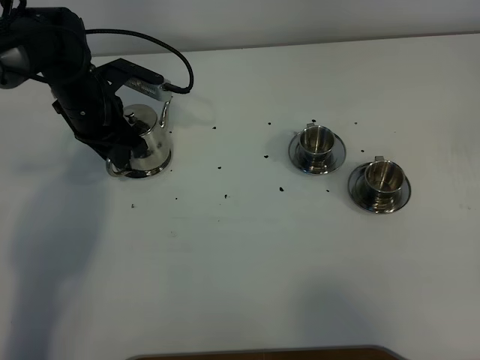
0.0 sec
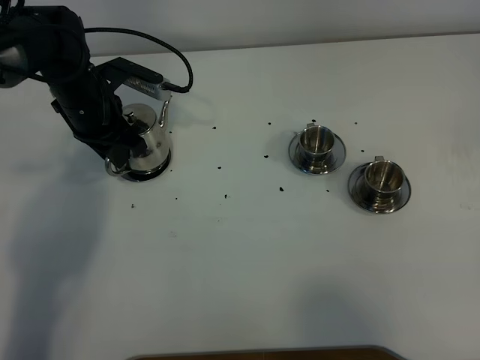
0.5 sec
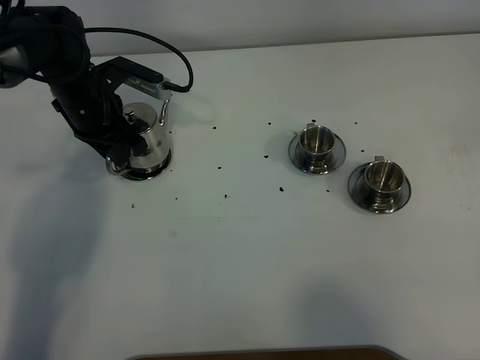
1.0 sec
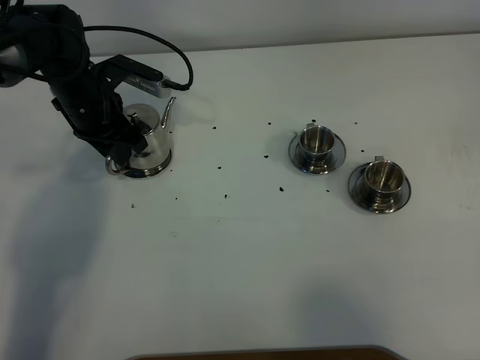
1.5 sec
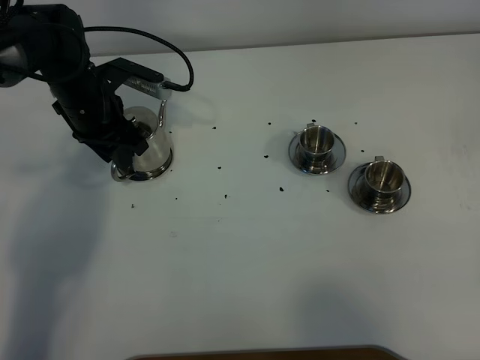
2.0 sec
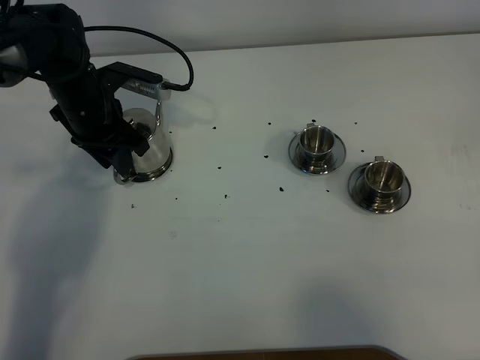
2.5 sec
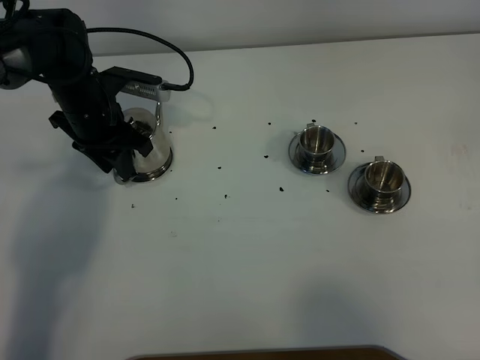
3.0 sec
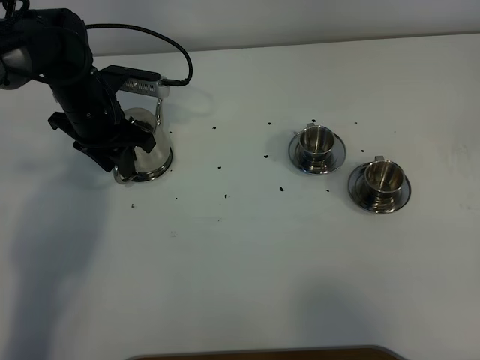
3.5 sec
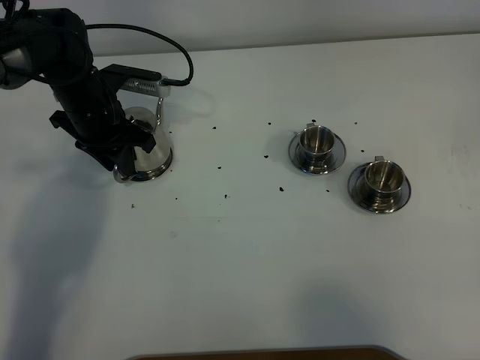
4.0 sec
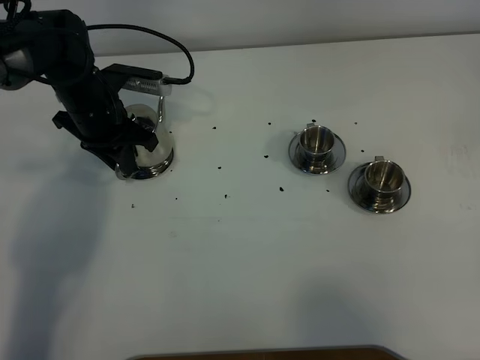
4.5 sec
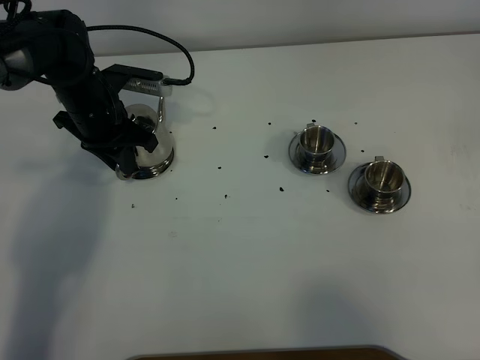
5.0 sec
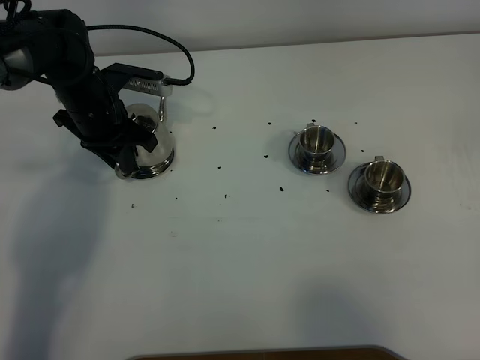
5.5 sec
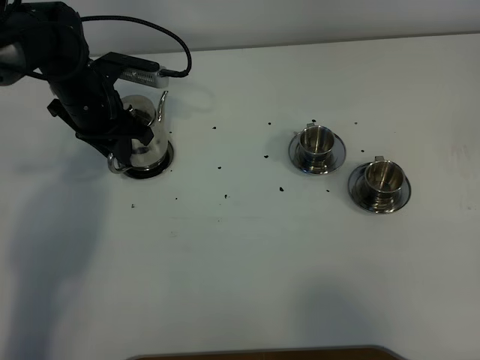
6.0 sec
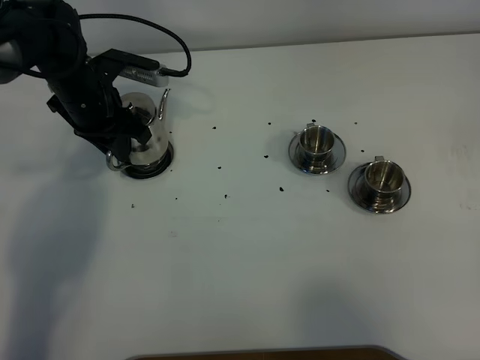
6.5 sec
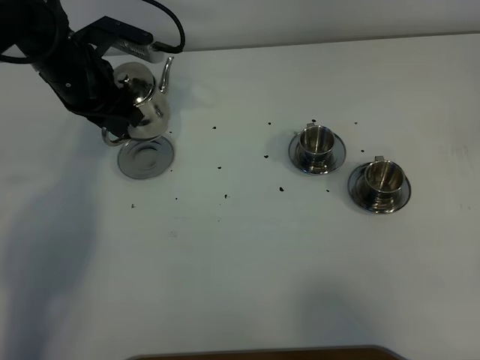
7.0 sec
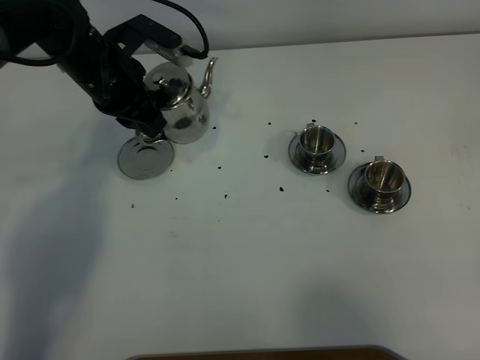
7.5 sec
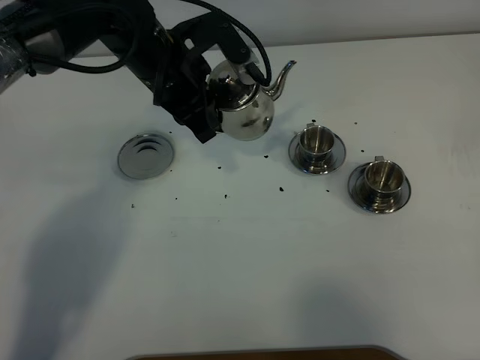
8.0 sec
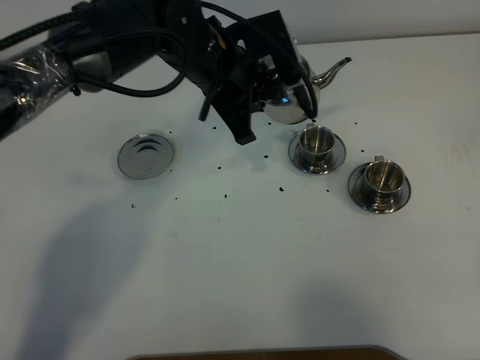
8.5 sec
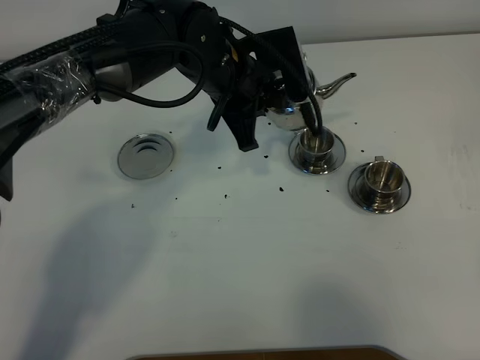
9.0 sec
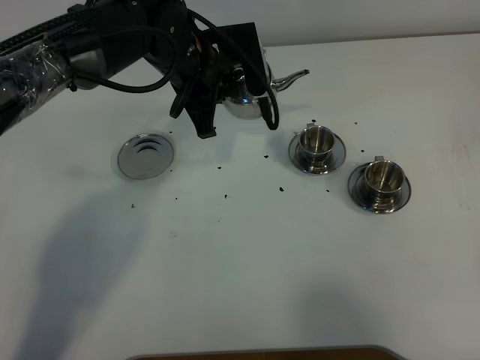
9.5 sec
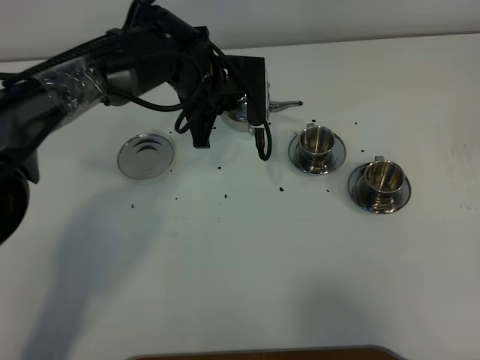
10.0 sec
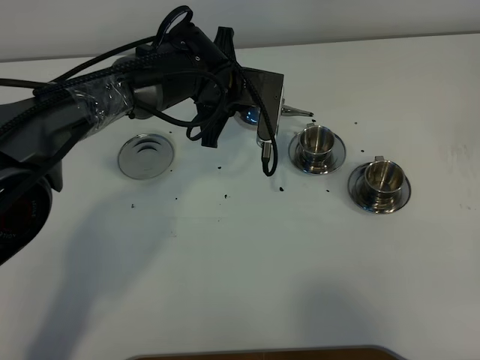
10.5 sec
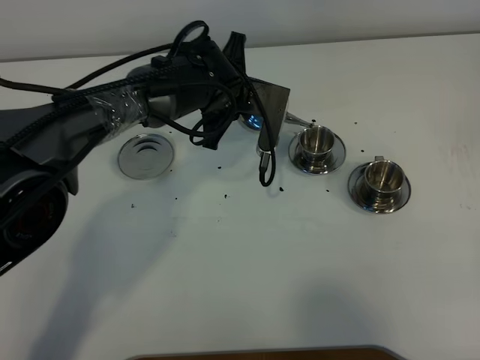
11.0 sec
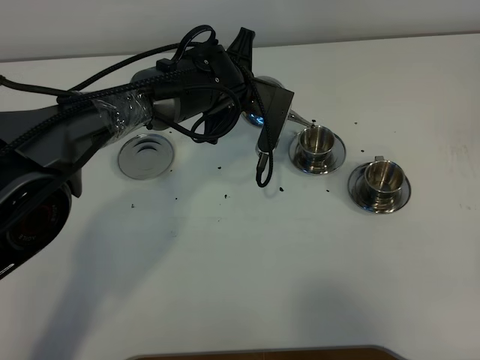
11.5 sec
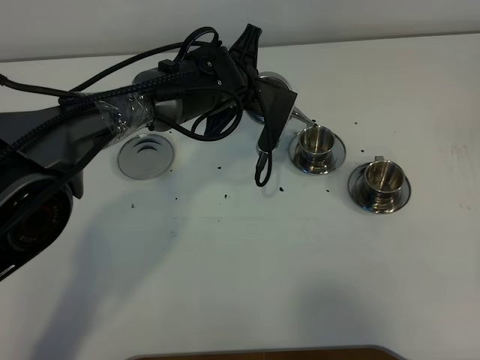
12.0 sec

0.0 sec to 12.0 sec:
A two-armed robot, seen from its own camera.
Task of the whole recording: grasp the stainless steel teapot and pour the tea into the two stainless steel teacups one by one, put the stainless steel teapot back in its original place.
0.0 sec to 2.0 sec: The left gripper opens.
2.0 sec to 4.0 sec: The grippers move only a little.
4.0 sec to 6.0 sec: Both grippers stay about where they are.
6.0 sec to 8.0 sec: The left gripper moves to the right and upward, roughly 15 cm.
8.0 sec to 10.0 sec: The left gripper shifts some 5 cm downward.

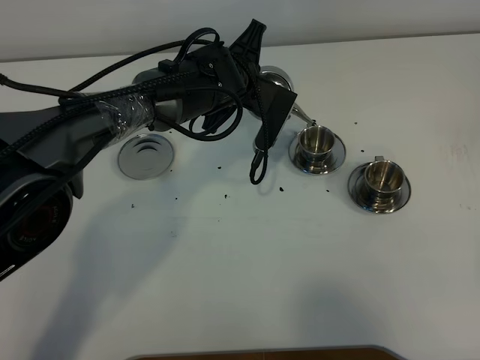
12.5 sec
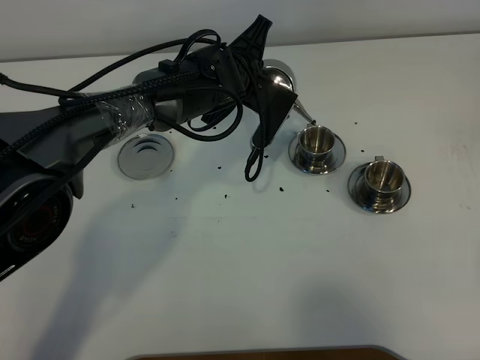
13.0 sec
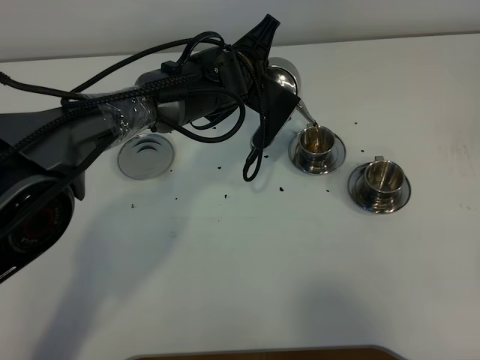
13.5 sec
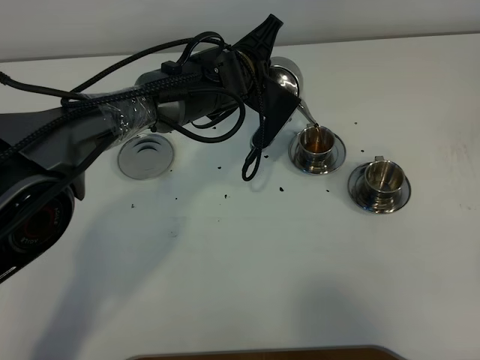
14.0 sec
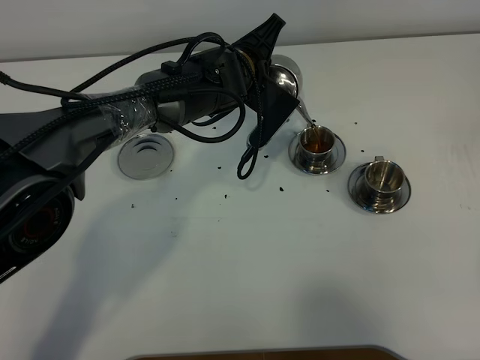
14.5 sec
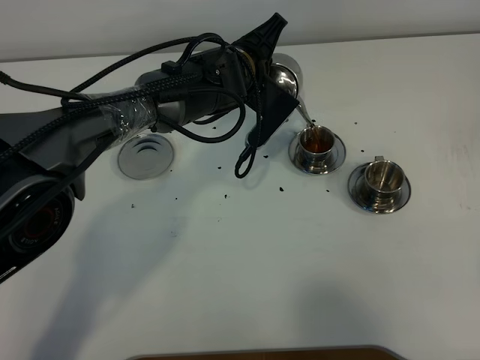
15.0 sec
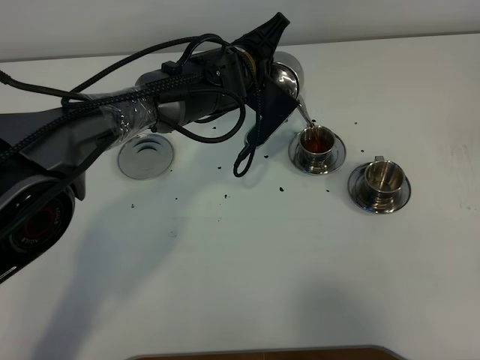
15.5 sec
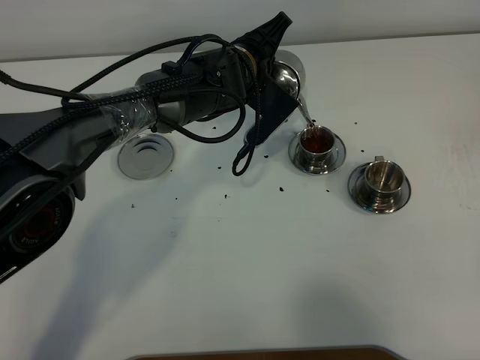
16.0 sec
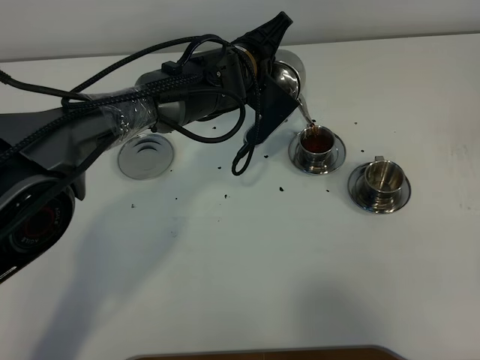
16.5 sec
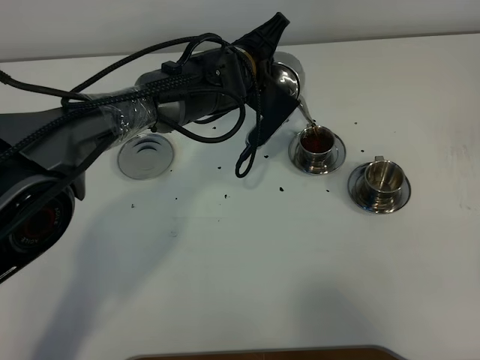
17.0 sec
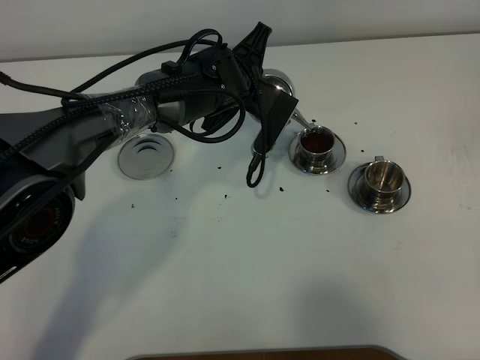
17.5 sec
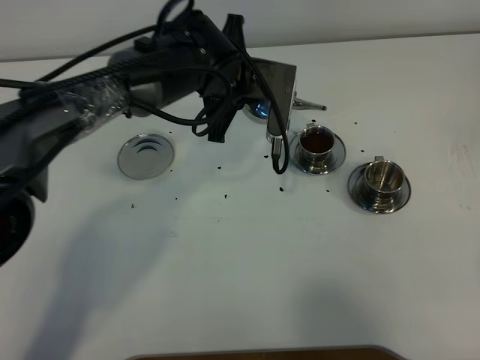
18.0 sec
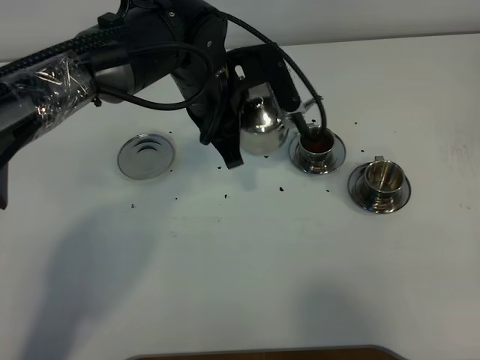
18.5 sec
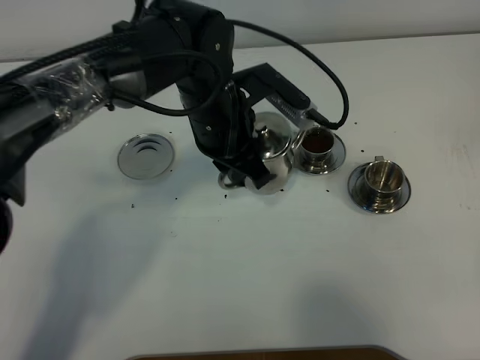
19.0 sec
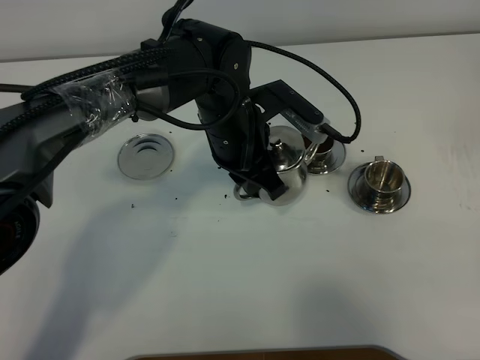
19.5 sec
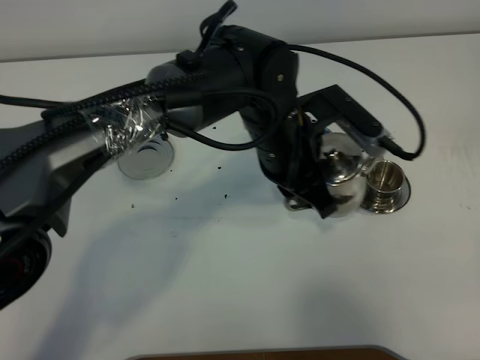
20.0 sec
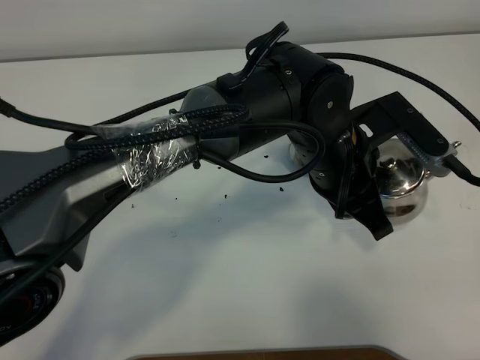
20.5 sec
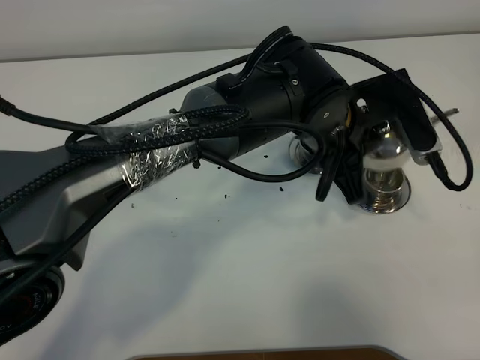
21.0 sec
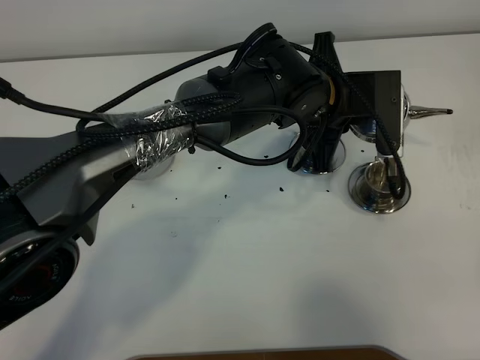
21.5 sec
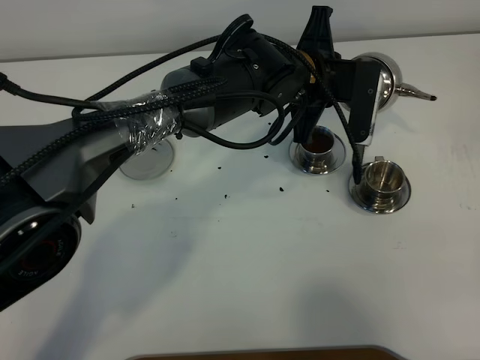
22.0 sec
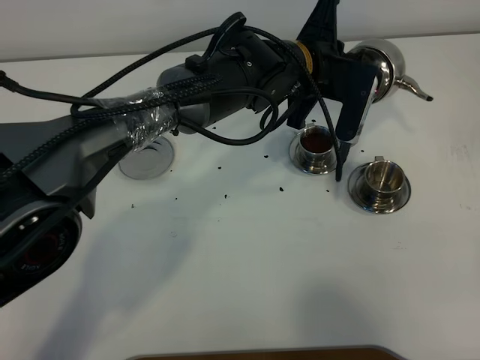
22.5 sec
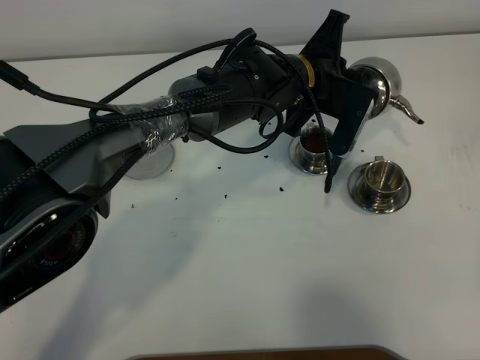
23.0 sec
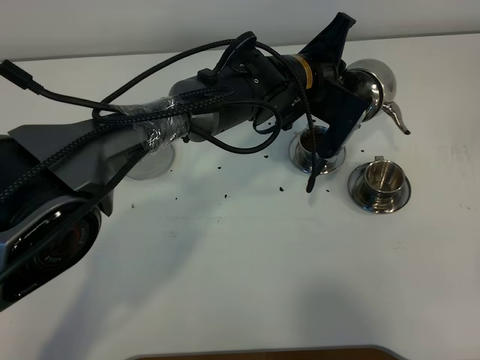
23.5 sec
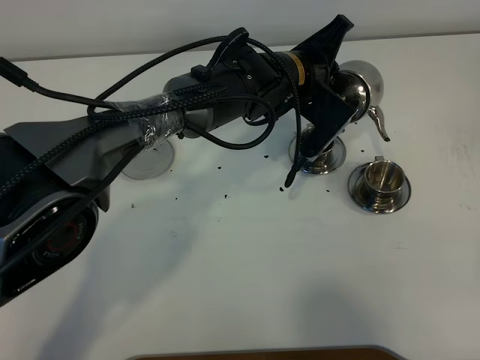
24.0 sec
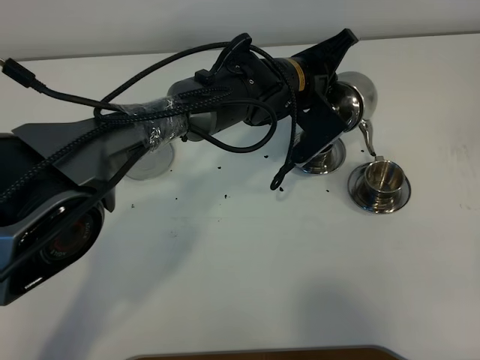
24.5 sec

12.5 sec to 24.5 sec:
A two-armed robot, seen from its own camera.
Task of the whole recording: grasp the stainless steel teapot and pour the tea into the two stainless steel teacups one by one, put the stainless steel teapot back in its original place.
Step, 12.5 sec to 17.5 sec: Pour tea into the teacup with the left gripper.
12.5 sec to 14.5 sec: The grippers stay close to where they were, moving slightly.
14.5 sec to 16.5 sec: There are only small adjustments of the grippers.
16.5 sec to 18.5 sec: The left gripper goes about 10 cm backward and upward.
18.5 sec to 20.5 sec: The left gripper heads to the right and backward, covering roughly 15 cm.
20.5 sec to 22.5 sec: The left gripper shifts some 10 cm forward.

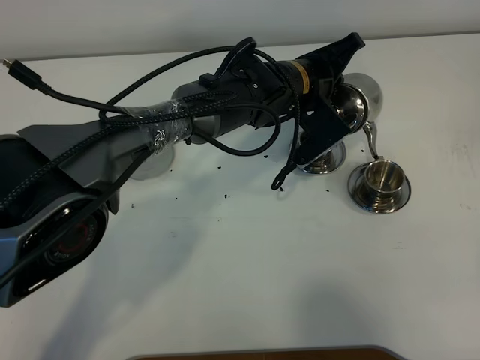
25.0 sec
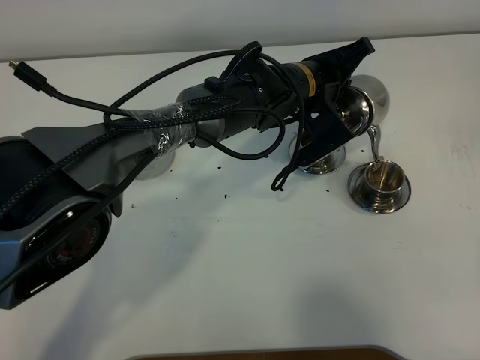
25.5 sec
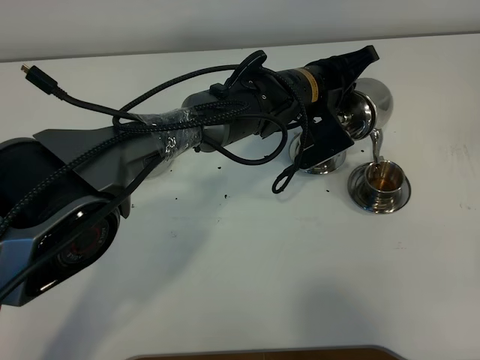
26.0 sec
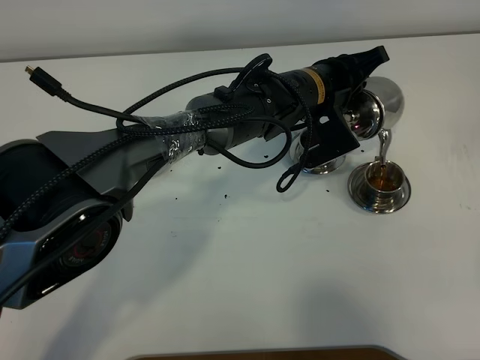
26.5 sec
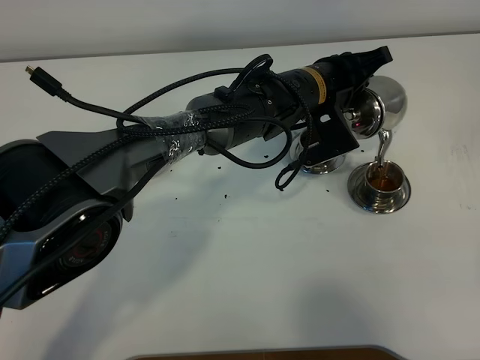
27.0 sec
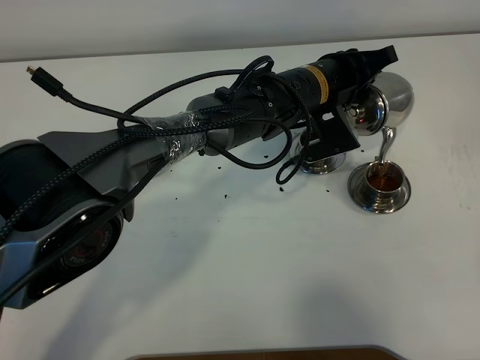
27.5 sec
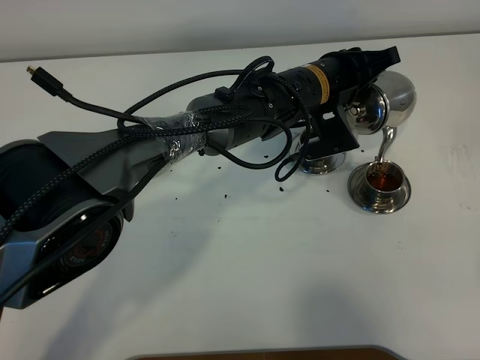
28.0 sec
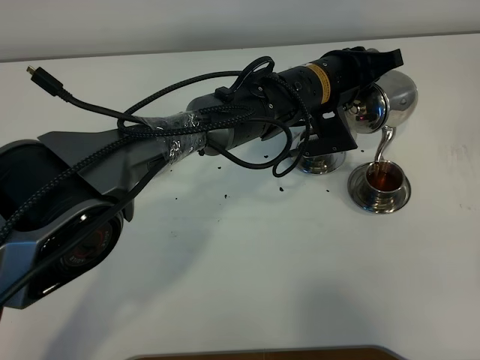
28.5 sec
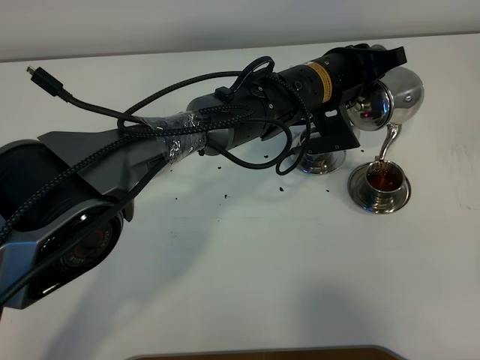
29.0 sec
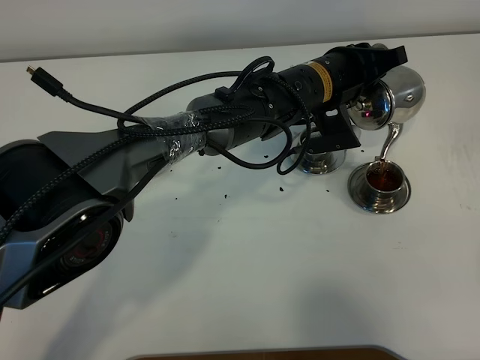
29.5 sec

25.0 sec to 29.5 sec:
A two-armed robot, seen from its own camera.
Task of the whole recording: grasp the stainless steel teapot and pour the tea into the two stainless steel teacups one by one, put the stainless steel teapot back in its original place.
25.0 sec to 27.0 sec: The grippers make only small movements.
27.0 sec to 29.5 sec: The grippers move only a little.
